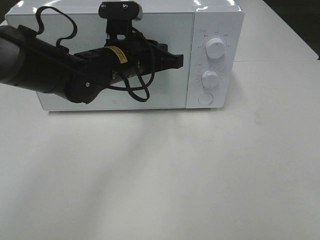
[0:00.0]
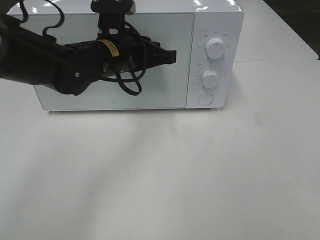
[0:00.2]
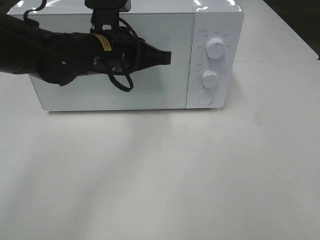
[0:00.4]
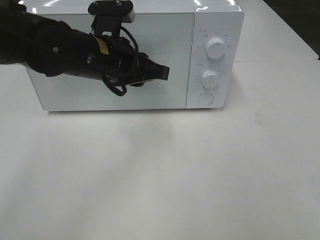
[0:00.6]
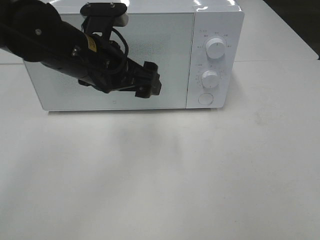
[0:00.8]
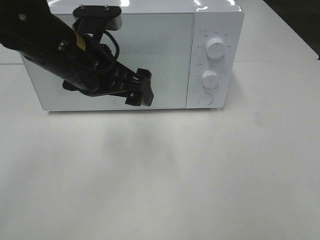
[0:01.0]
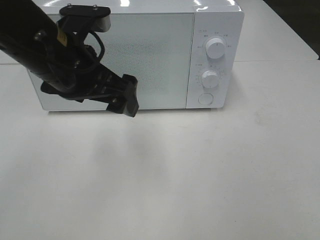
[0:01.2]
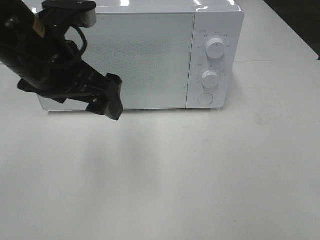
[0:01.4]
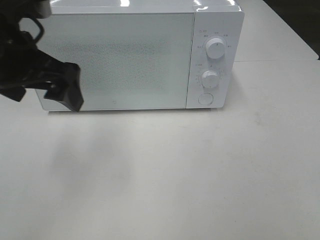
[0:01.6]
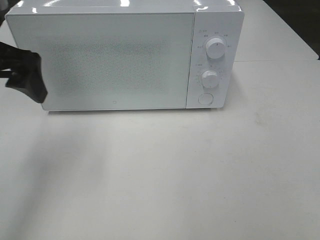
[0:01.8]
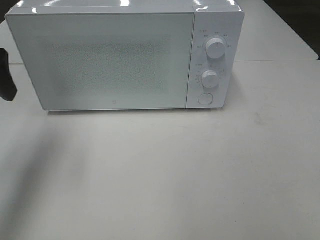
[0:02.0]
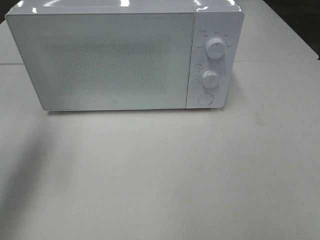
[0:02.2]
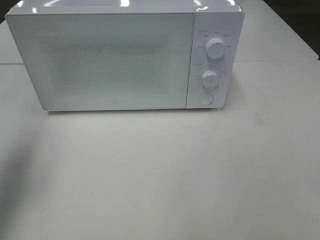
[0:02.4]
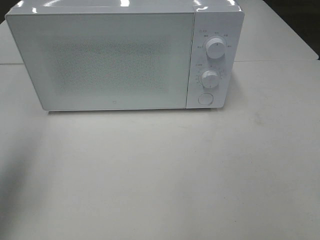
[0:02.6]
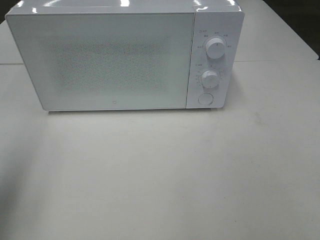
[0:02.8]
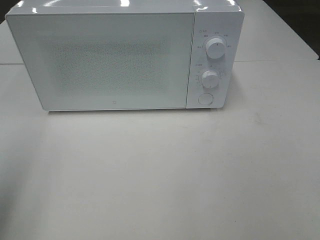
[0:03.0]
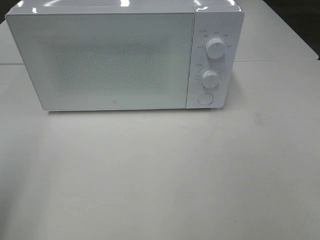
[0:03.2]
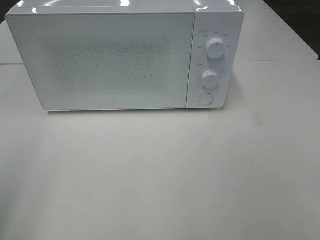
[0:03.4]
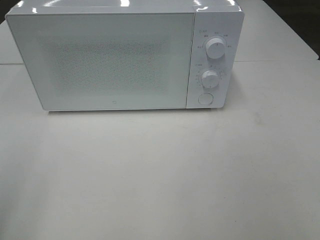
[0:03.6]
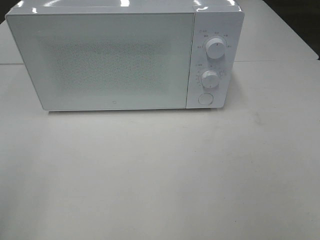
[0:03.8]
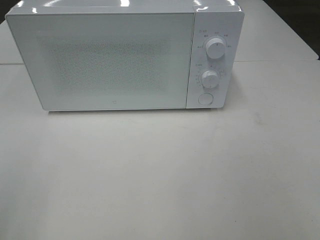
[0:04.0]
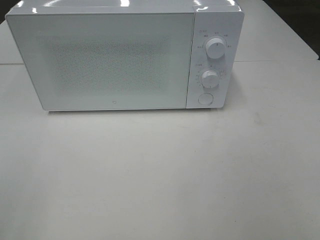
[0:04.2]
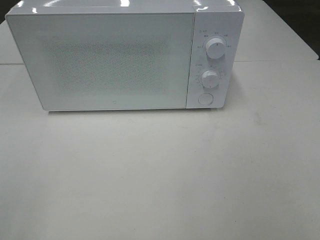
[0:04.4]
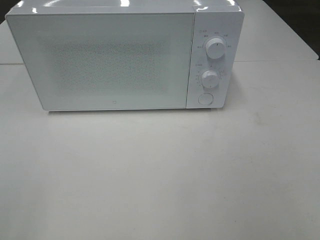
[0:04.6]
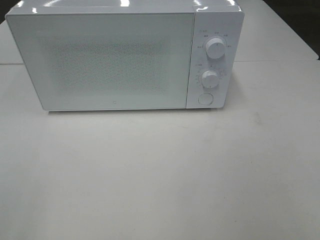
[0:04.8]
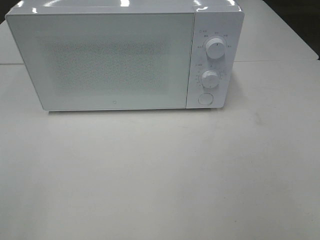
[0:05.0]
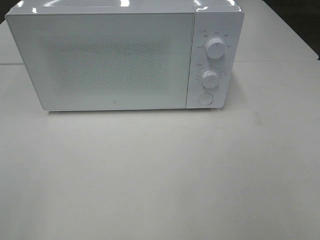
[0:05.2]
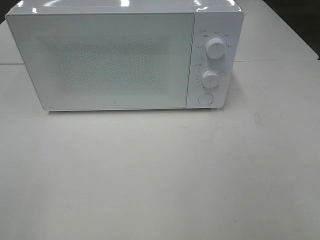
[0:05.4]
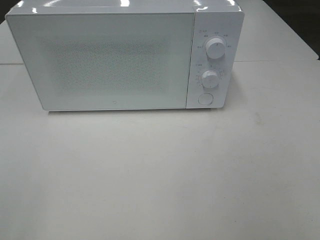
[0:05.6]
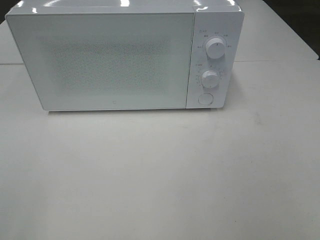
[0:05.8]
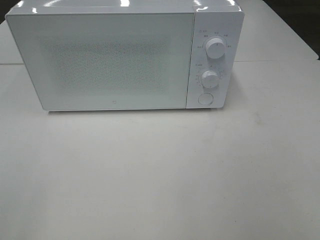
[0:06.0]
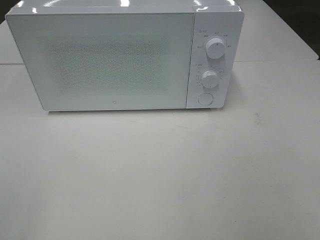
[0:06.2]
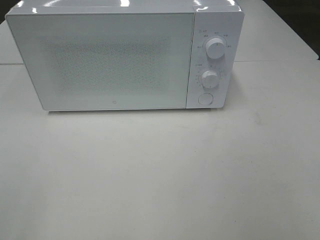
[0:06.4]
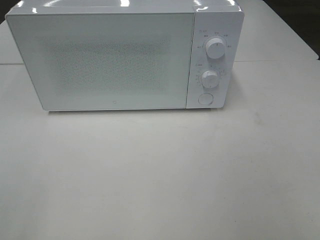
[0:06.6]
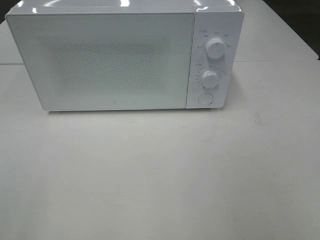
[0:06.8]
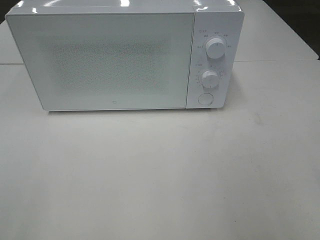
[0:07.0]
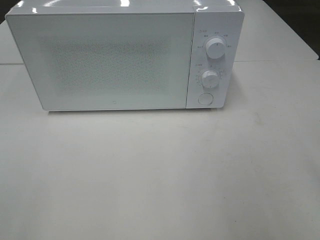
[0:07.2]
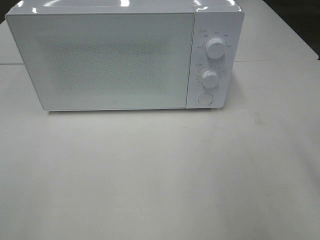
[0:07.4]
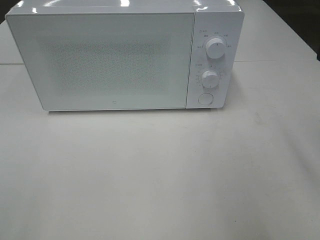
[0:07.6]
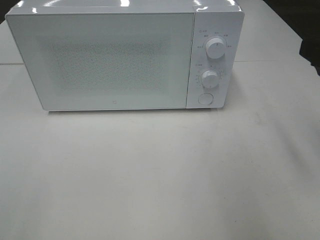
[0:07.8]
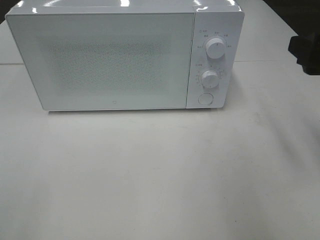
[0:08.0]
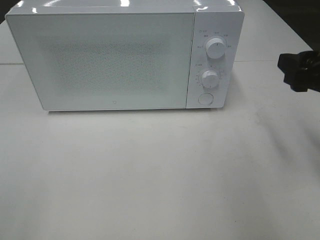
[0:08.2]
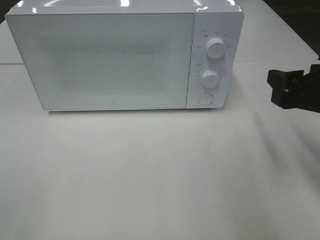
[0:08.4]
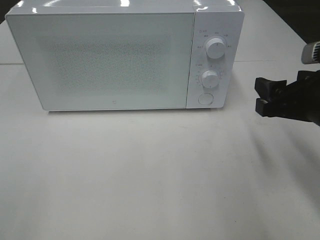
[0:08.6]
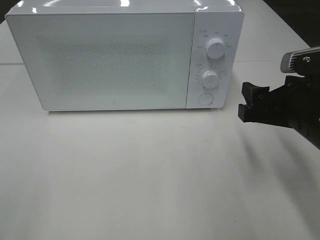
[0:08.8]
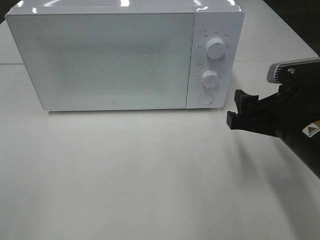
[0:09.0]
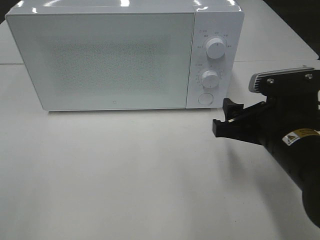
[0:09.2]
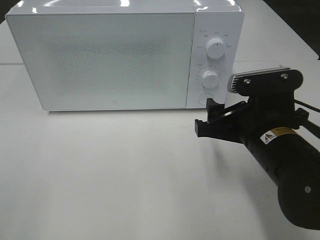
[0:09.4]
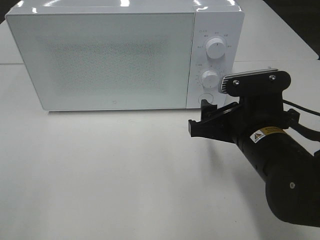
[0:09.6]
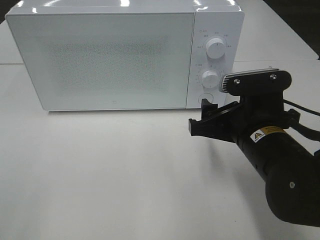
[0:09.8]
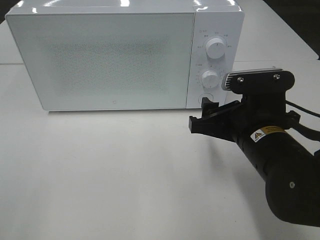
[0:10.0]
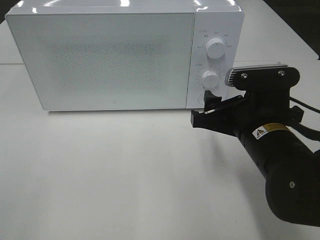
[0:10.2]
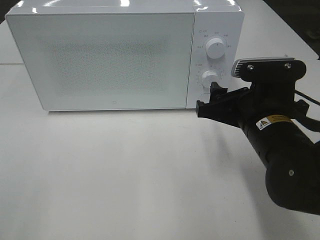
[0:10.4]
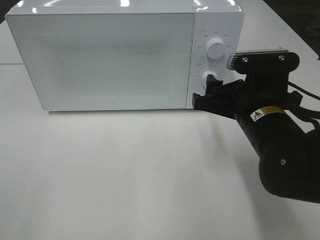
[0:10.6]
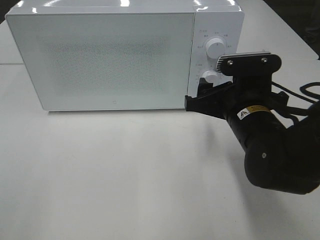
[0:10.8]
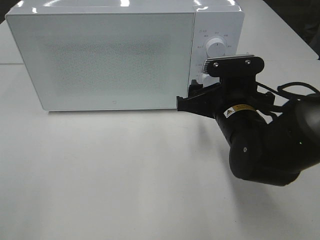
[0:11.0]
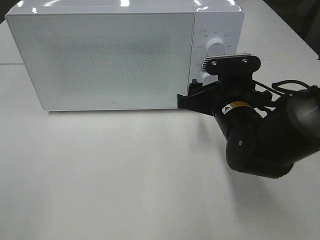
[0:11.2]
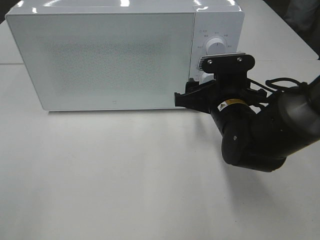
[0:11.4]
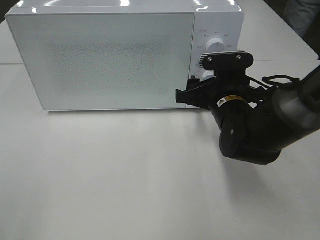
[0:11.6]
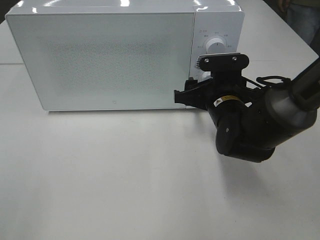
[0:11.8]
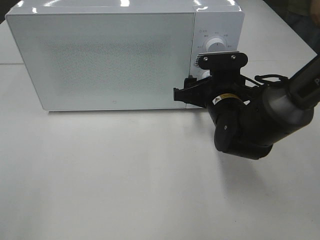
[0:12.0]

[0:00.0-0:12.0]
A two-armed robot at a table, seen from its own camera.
Task of the whole recording: Heat the burger.
0:00.0 to 0:01.6: The left gripper heads to the left, upward and backward, covering about 20 cm, and opens up.
0:01.6 to 0:03.0: The left gripper goes about 20 cm to the left and backward.
0:03.0 to 0:04.4: The left gripper goes some 10 cm backward.
0:04.4 to 0:06.0: Both grippers stay about where they are.
0:07.6 to 0:09.0: The right gripper goes roughly 15 cm downward and to the left.
0:09.0 to 0:10.4: The right gripper changes place by some 5 cm.
0:10.4 to 0:12.0: The right gripper is displaced forward by approximately 10 cm.

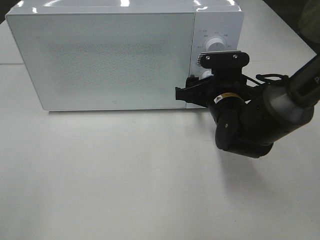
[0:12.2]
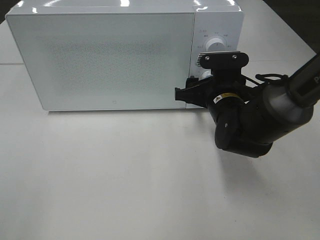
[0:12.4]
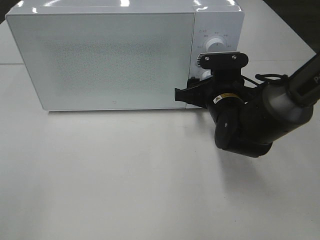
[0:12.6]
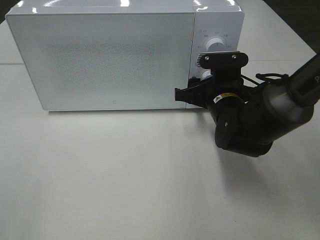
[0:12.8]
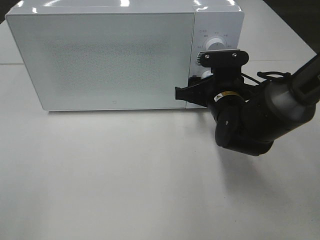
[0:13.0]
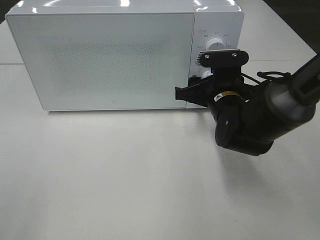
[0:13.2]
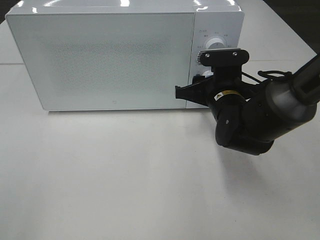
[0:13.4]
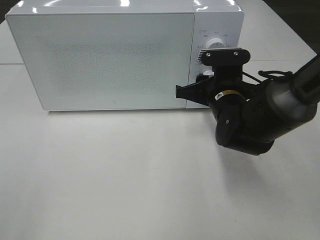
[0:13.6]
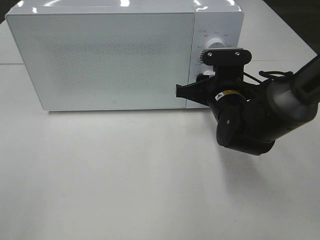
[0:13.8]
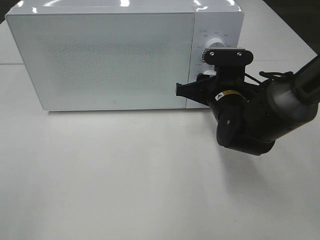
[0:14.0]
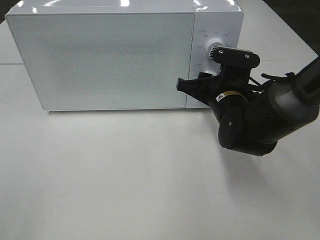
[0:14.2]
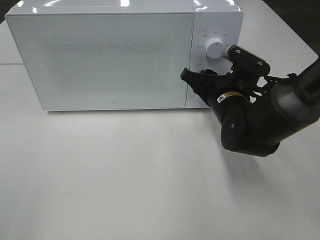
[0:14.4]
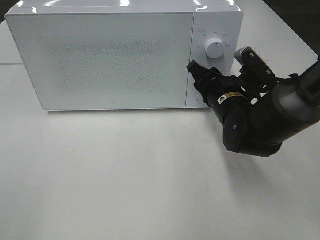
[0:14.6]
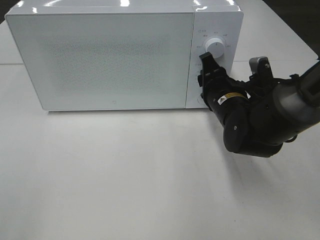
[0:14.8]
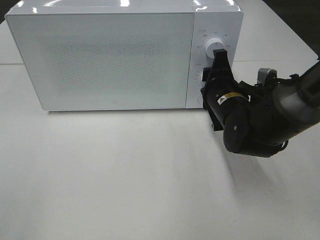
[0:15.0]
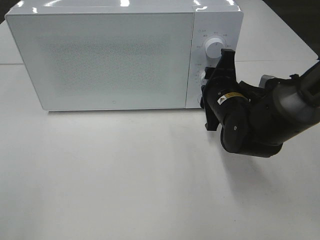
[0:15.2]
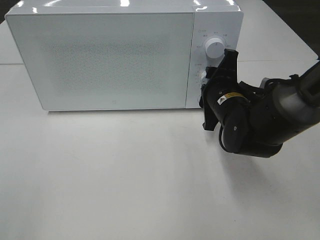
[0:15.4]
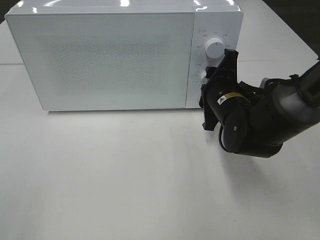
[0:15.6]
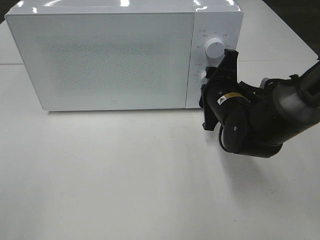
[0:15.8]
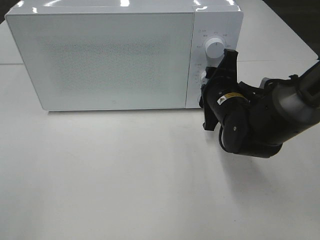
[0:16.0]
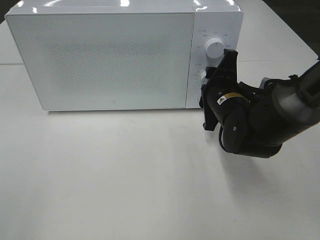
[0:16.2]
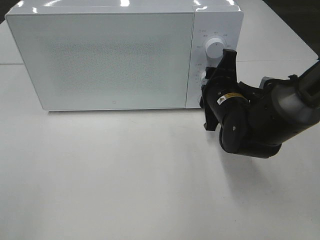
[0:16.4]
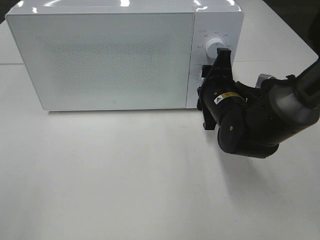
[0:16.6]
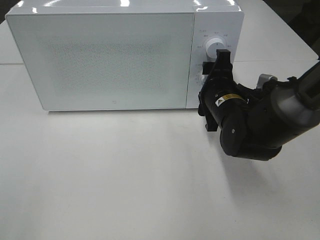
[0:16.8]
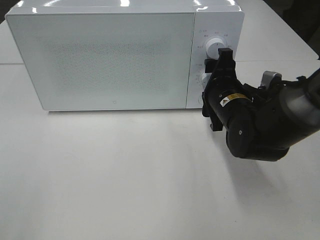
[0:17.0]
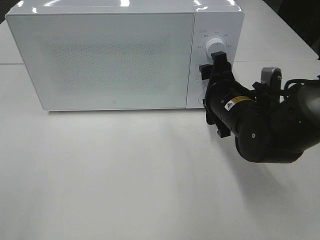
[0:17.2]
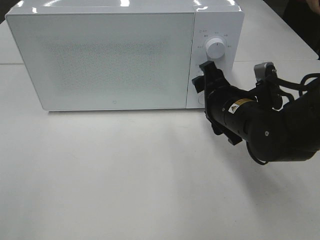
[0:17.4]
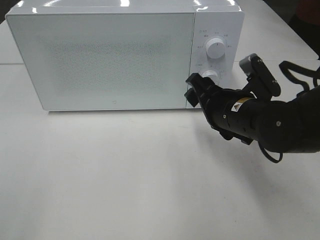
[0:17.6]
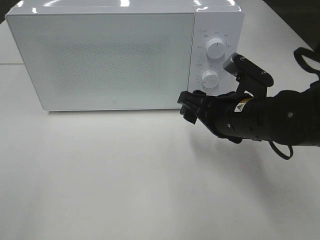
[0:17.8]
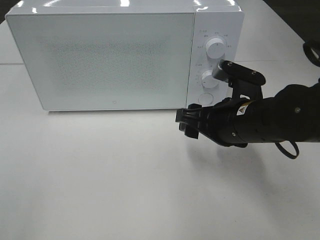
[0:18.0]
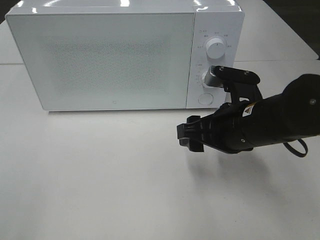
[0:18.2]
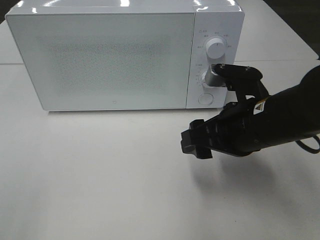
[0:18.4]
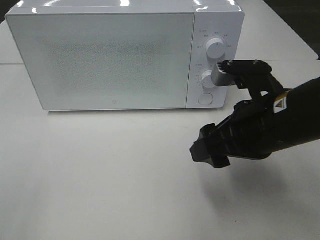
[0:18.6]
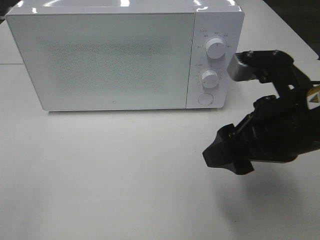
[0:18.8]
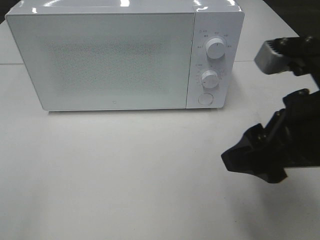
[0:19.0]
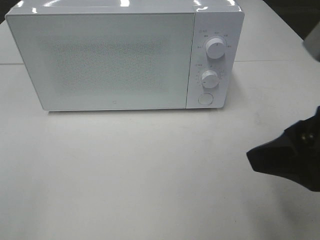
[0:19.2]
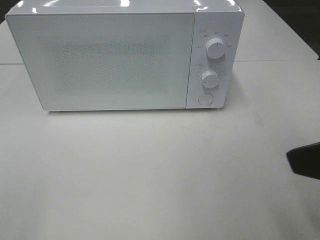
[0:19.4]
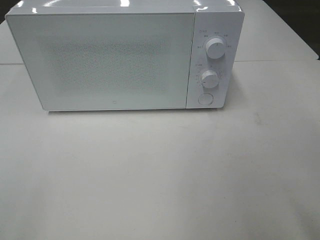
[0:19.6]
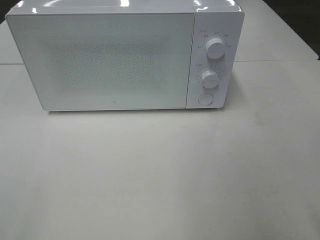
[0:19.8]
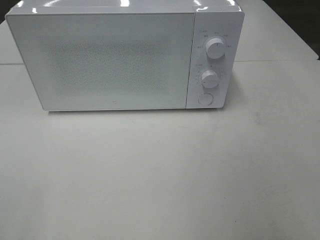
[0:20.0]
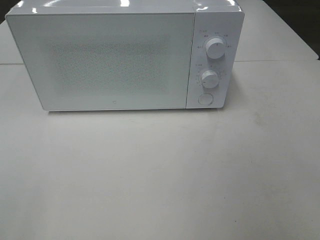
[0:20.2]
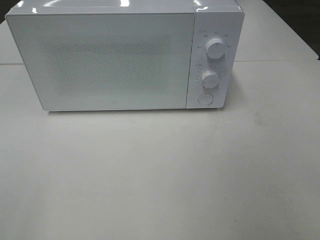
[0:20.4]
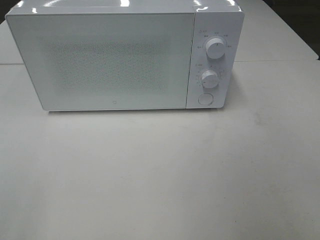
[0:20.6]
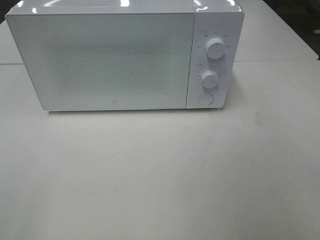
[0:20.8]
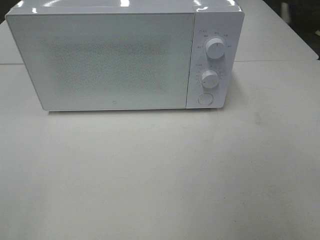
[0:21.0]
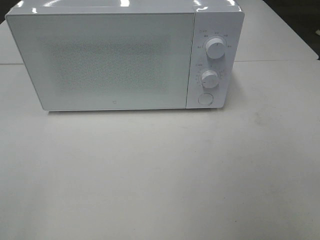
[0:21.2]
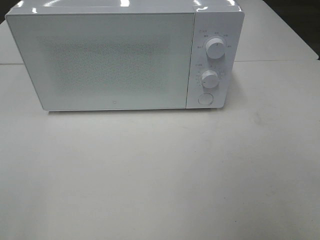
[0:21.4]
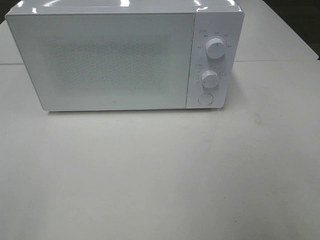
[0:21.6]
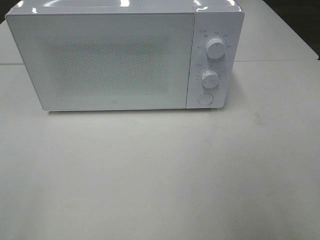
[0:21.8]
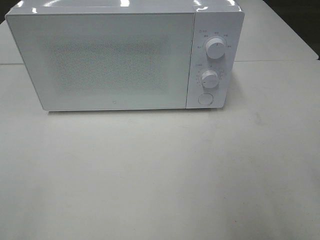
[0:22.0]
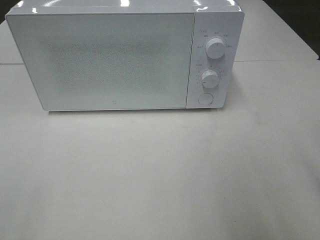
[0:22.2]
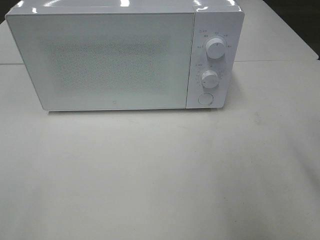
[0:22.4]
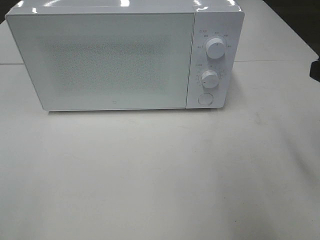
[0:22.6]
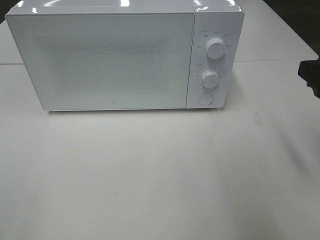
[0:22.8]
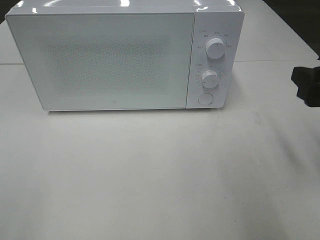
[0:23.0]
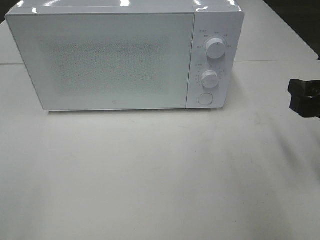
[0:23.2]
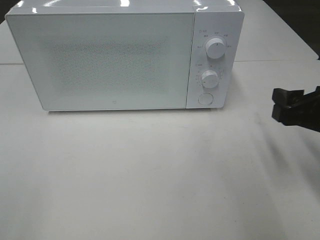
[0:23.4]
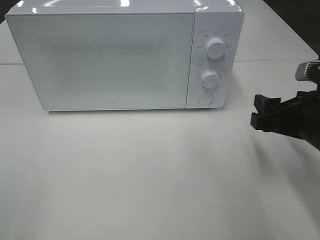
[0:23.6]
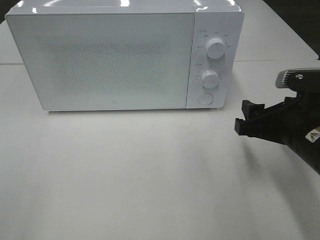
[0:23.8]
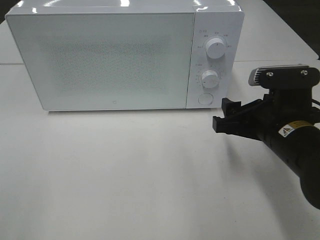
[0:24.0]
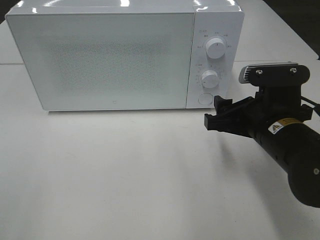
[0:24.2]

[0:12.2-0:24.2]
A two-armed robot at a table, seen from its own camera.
Task of the whole recording: Heat the burger.
Step, 0:12.2 to 0:16.6: Right hand: twist timer button.
0:12.2 to 0:13.8: The right gripper closes its fingers.
0:15.2 to 0:16.6: Both grippers stay put.
0:16.6 to 0:18.2: The right gripper moves backward, roughly 10 cm.
0:18.2 to 0:19.8: The right gripper is displaced backward, upward and to the right by about 30 cm.
0:22.6 to 0:24.2: The right gripper moves downward, to the left and forward, approximately 15 cm.
